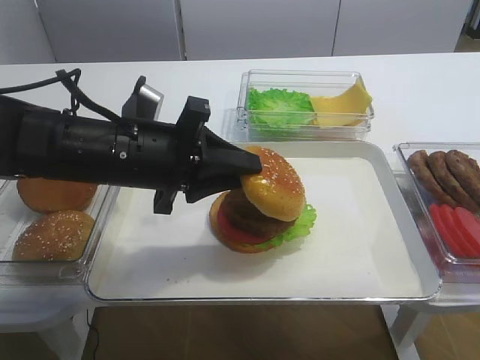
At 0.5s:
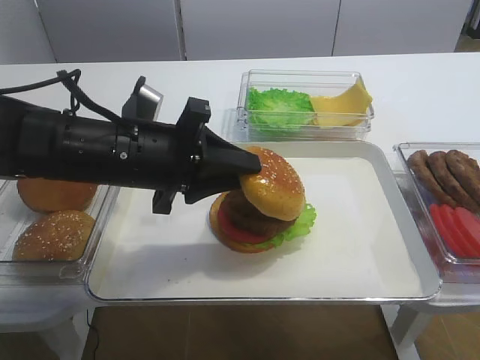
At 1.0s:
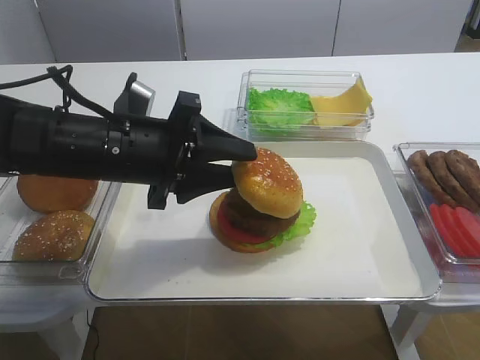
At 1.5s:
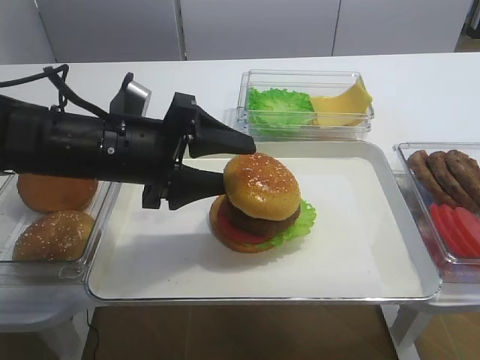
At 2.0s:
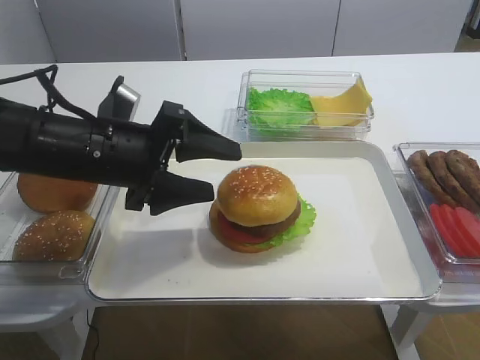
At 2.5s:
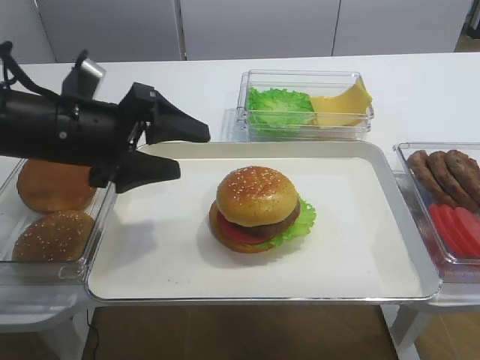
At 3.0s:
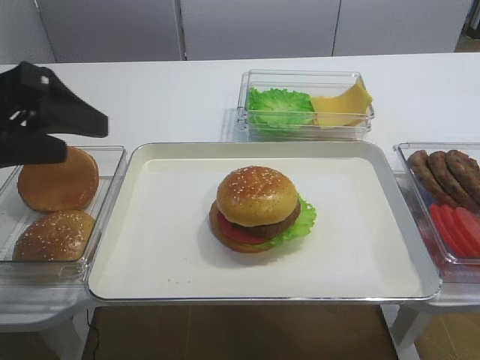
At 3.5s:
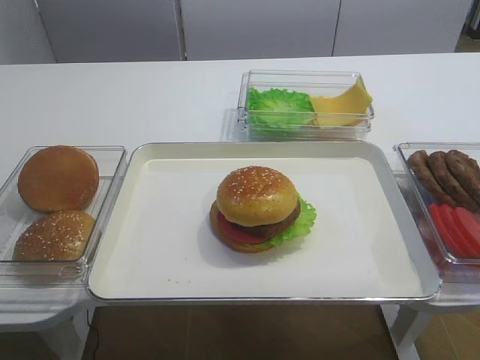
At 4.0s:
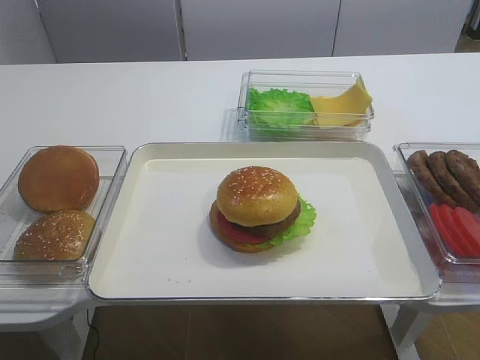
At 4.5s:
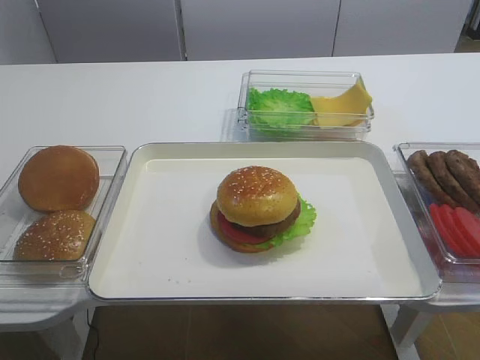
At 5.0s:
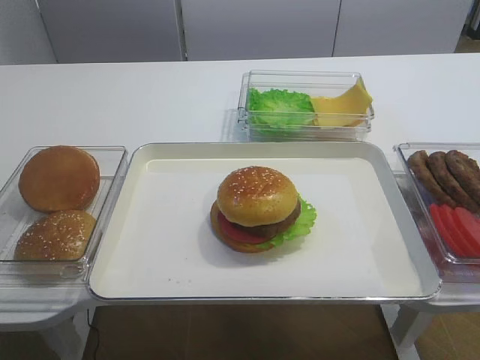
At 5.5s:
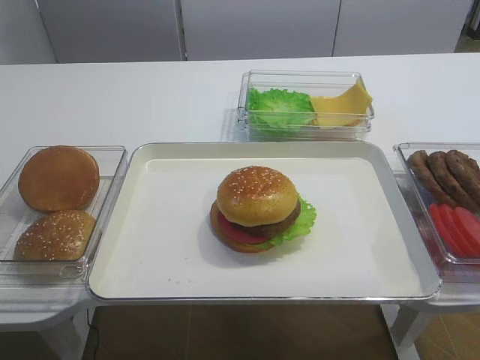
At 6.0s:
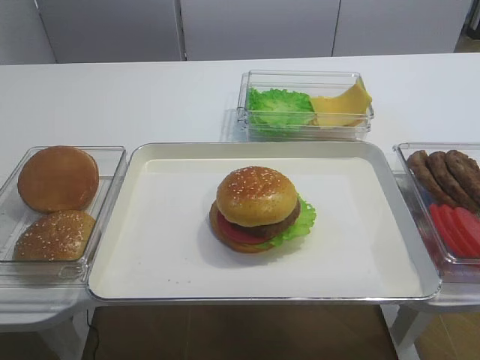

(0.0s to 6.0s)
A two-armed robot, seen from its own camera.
Step, 0.0s - 2.0s: Place the hamburger lid on the cutlet slice with the left gripper.
0.0s - 2.0s: The left gripper opens its fingers.
2.0s - 4.0s: The left gripper shifts roughly 30 cm backward, to the left and upward.

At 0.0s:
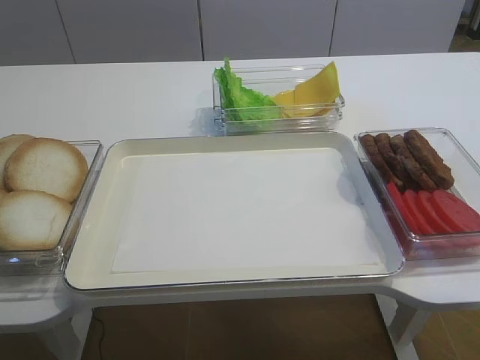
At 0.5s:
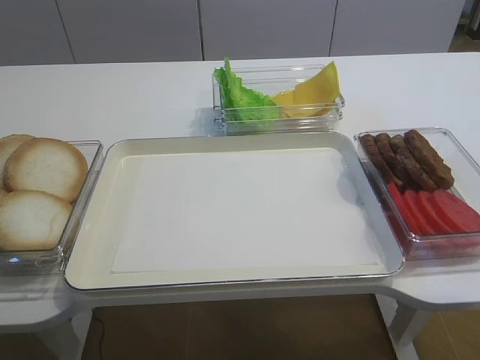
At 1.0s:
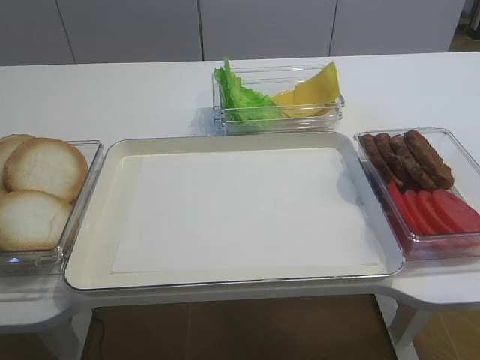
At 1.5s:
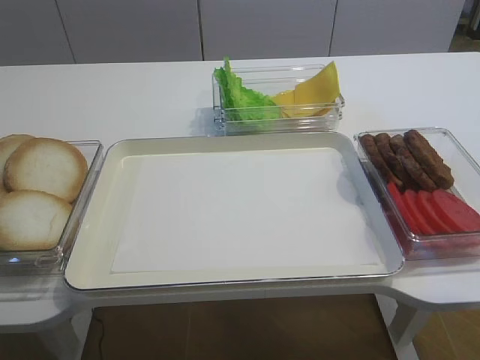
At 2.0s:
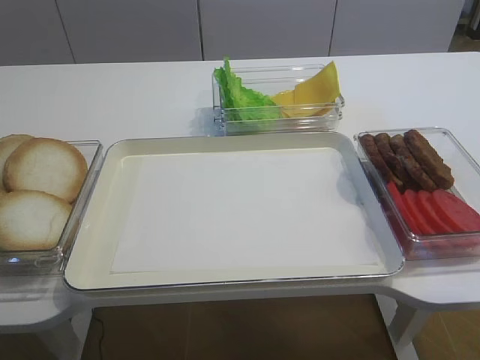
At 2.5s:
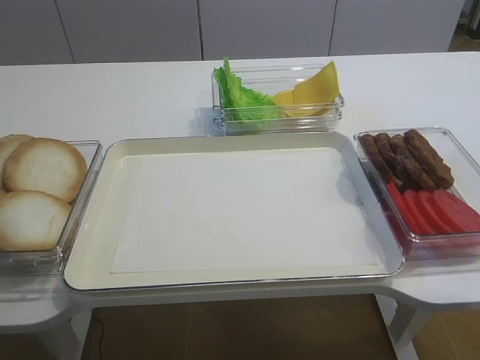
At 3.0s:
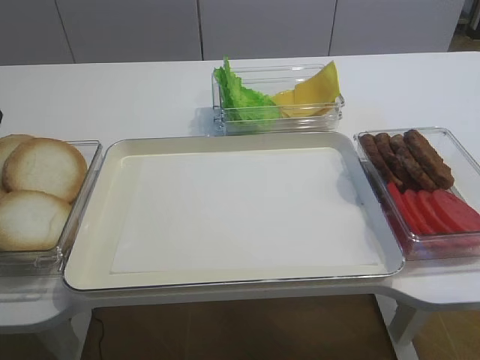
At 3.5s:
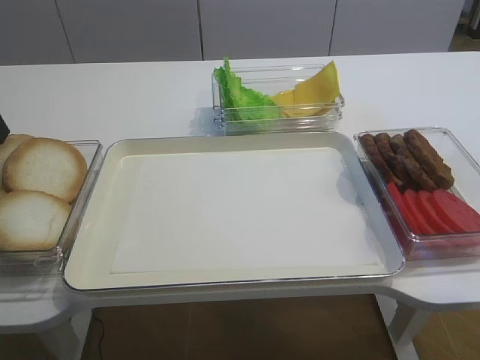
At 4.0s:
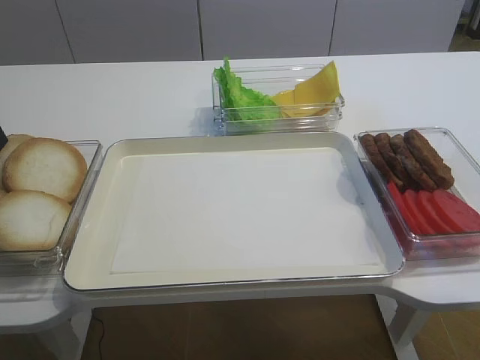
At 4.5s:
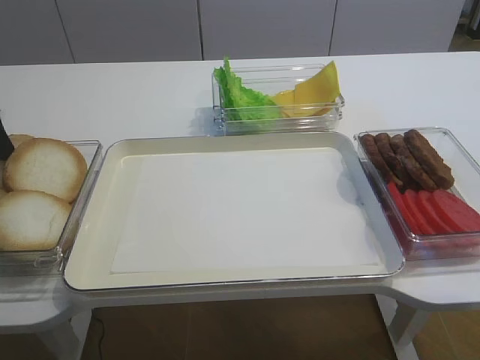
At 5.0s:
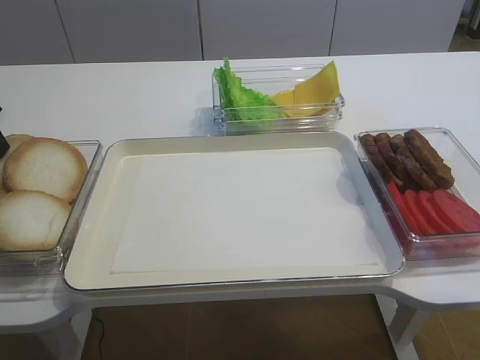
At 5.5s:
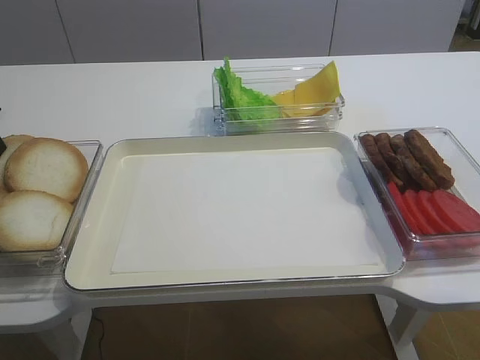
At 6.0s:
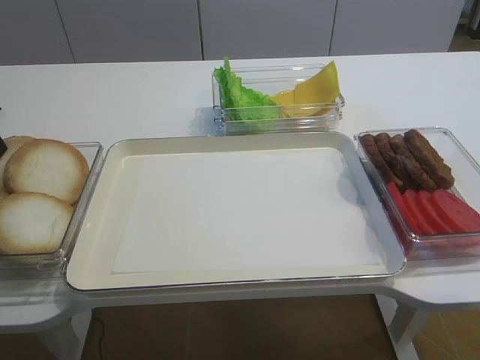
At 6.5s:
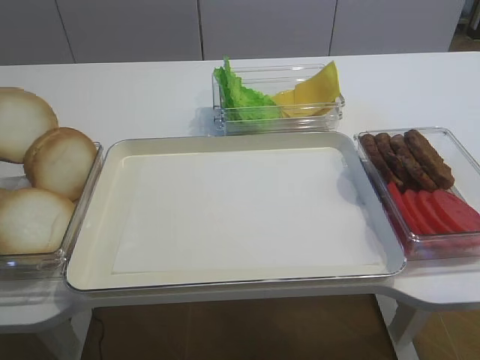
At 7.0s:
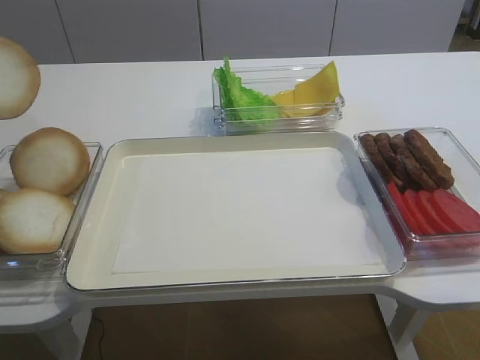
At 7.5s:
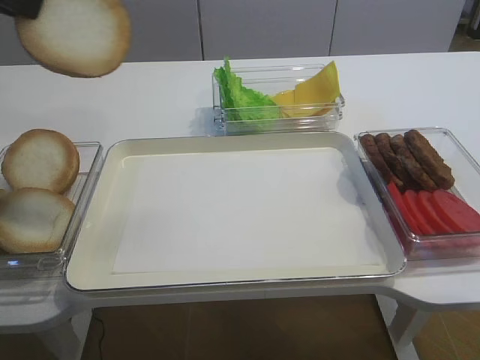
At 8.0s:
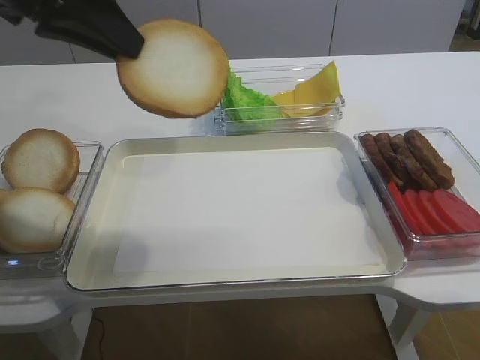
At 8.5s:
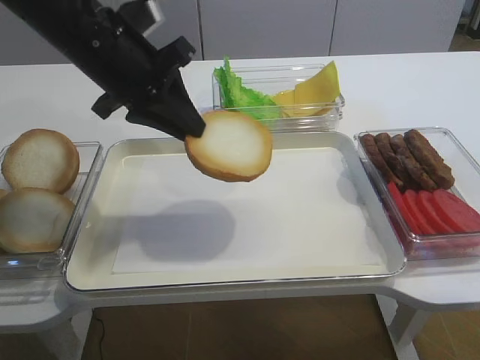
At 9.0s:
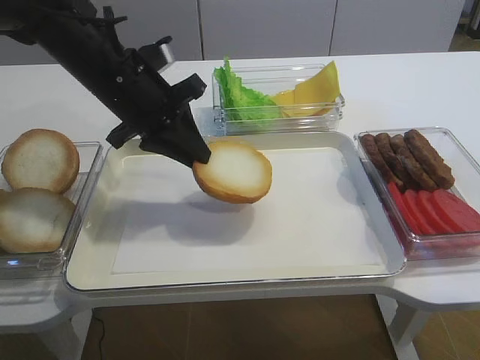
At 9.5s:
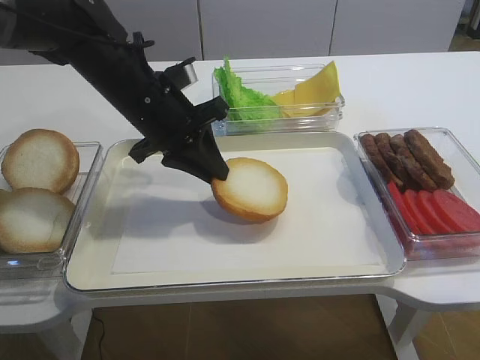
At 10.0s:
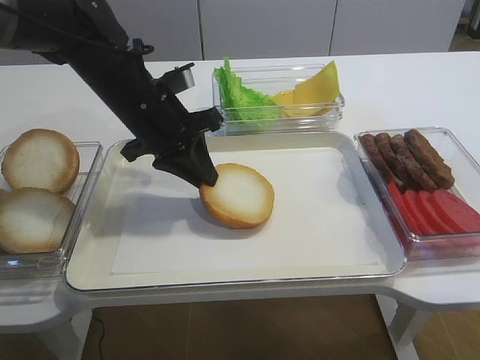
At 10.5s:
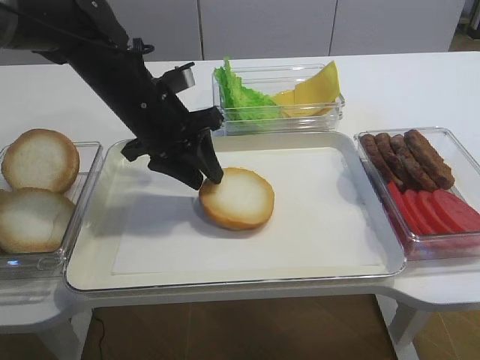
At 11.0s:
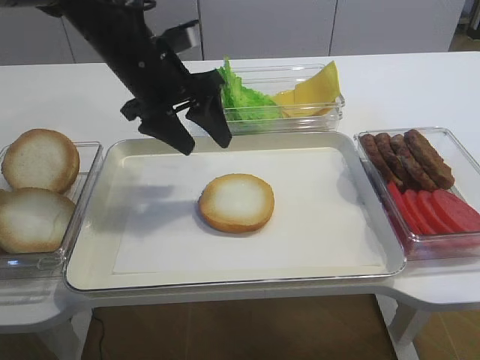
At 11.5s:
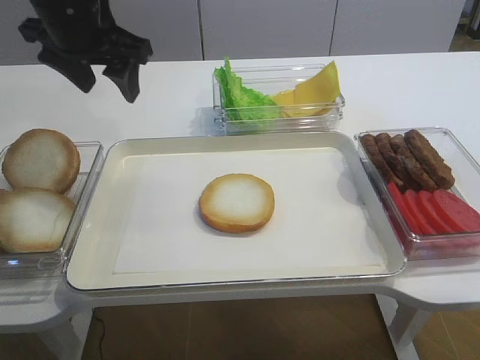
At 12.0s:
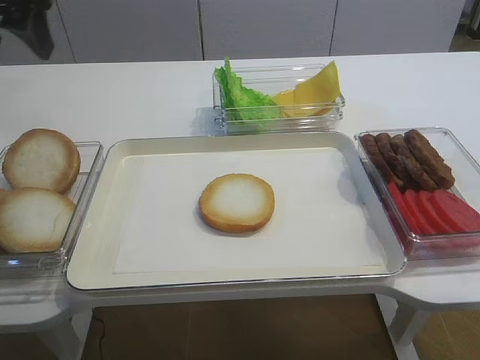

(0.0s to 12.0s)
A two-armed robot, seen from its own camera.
Step, 0.0s - 6.5s: Pick up the bread slice with the left gripper.
Step, 7.0s - 10.5s: Place the bread slice on the tray with the left gripper.
4.0s - 6.0s: The left gripper closes up.
6.0s - 8.0s: The left gripper goes about 20 cm to the right, upward and backward.
8.0s - 10.0s: The left gripper moves downward, forward and to the right, approximately 20 cm.
10.0s - 12.0s: The left gripper shifts approximately 20 cm upward and to the left, and opens up.

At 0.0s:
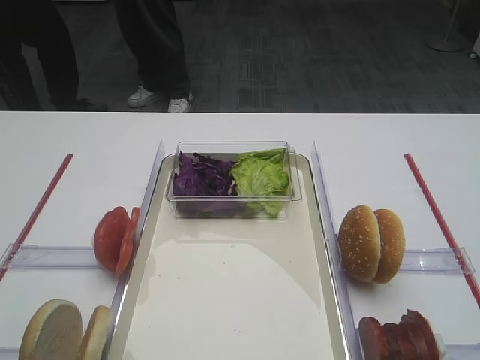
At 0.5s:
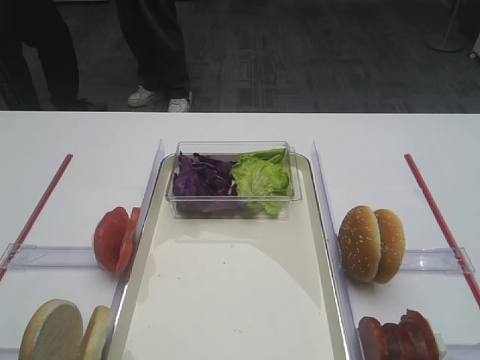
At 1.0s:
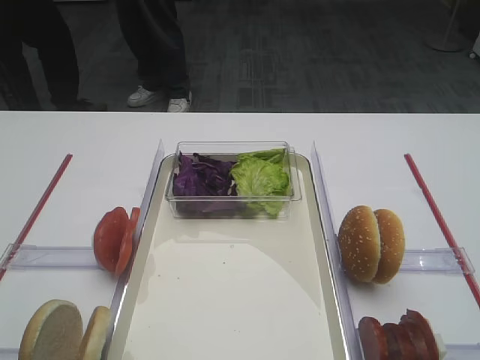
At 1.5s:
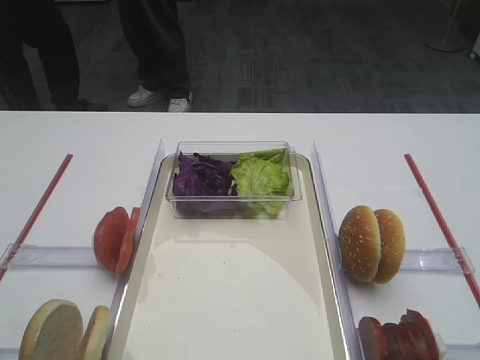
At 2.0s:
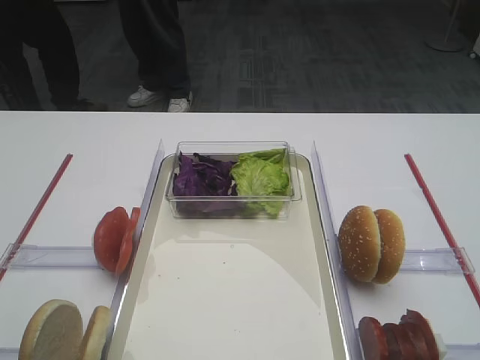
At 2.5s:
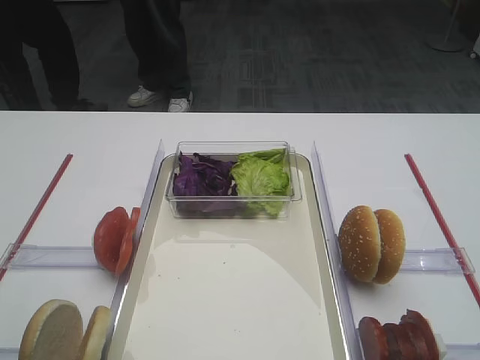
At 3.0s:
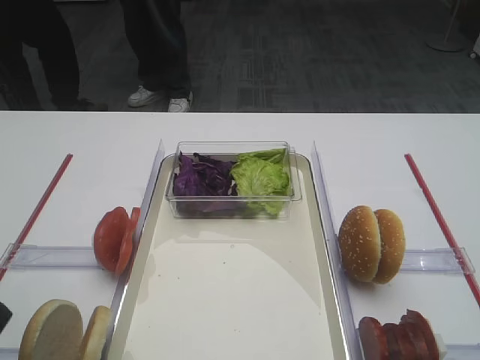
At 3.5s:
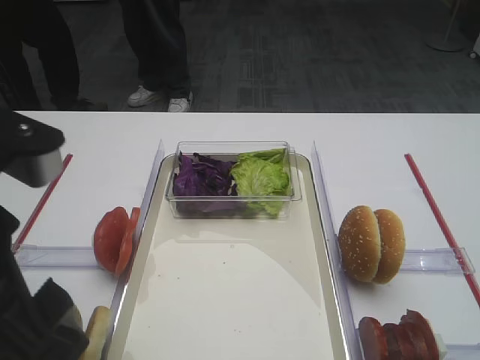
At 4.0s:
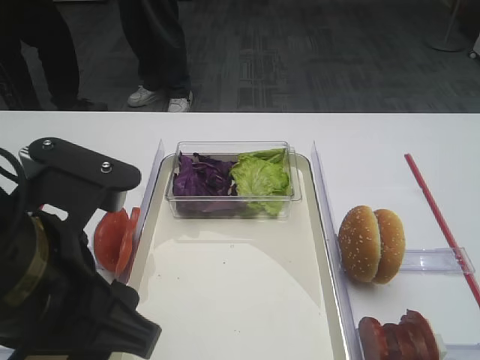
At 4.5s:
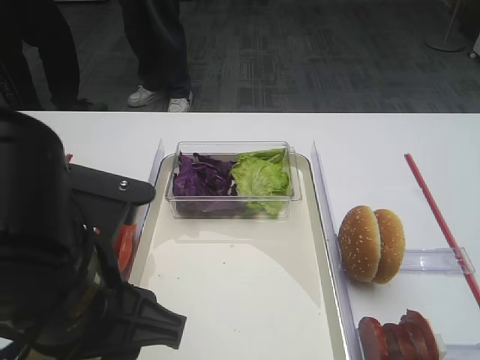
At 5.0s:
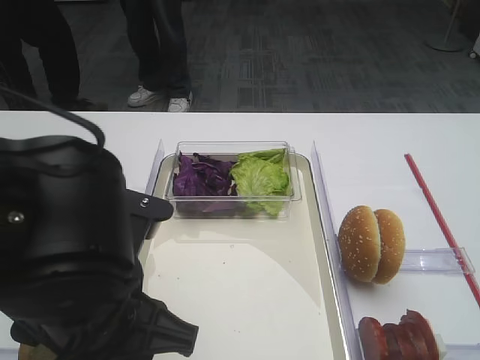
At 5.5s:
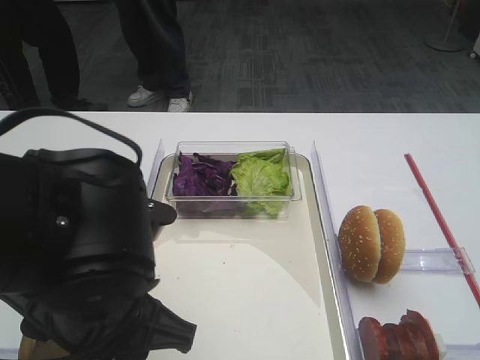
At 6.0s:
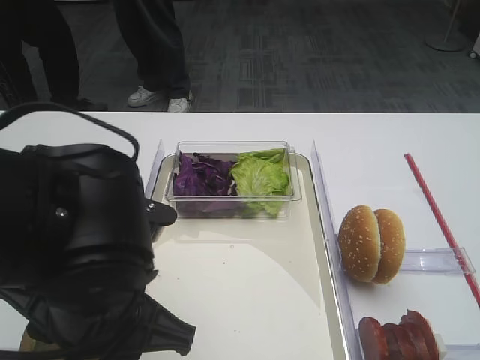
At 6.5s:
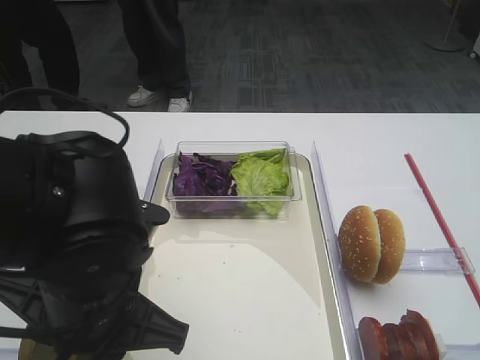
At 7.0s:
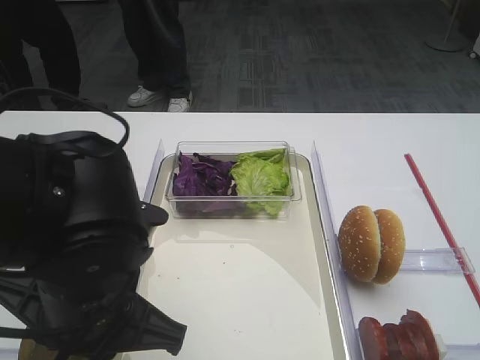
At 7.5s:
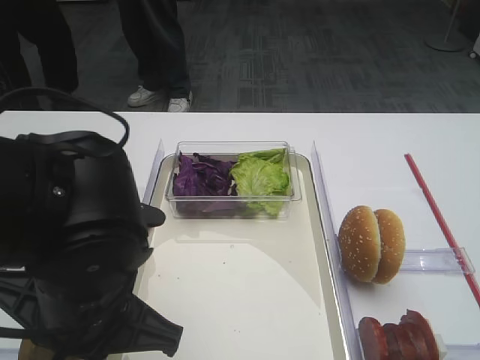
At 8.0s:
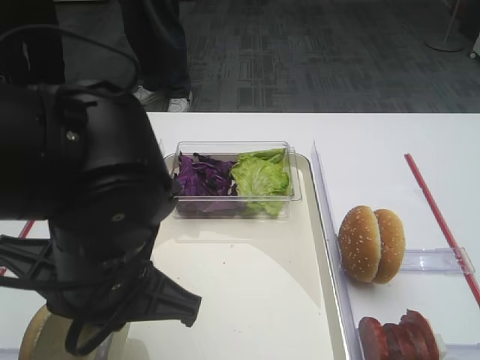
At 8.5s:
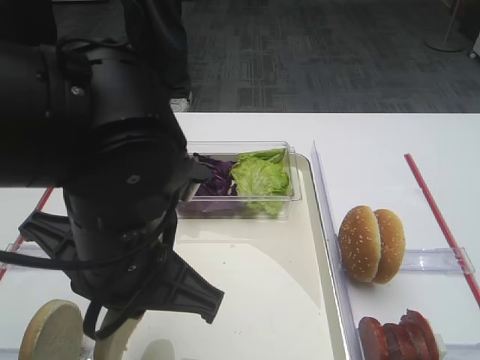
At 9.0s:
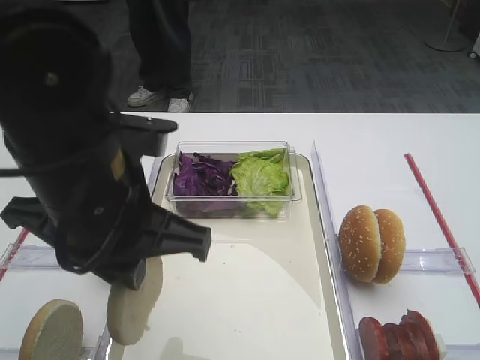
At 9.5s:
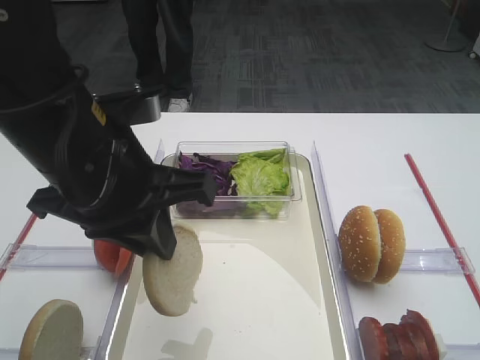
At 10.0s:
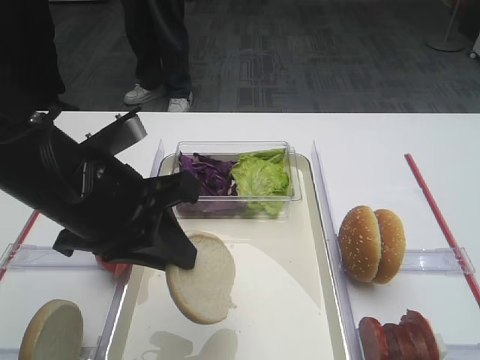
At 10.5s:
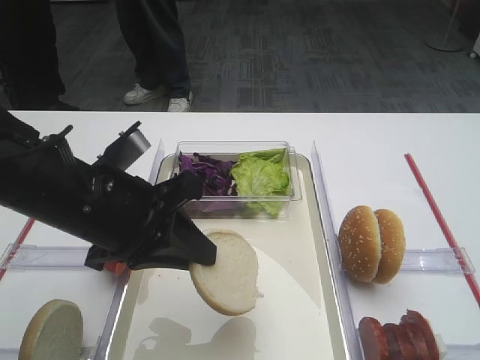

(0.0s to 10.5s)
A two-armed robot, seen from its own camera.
Step, 0.0s - 8.0s: Pick up the bread slice with the left gripper.
2.0s - 4.0s: The left gripper is displaced to the right, forward and downward by about 20 cm.
4.0s - 6.5s: The left gripper moves downward, some 5 cm, and closes up.
6.5s - 8.5s: The left gripper ends up approximately 5 cm from where it was, and closes its fingers.
8.5s - 10.5s: The left gripper goes about 10 cm to the left and forward.
